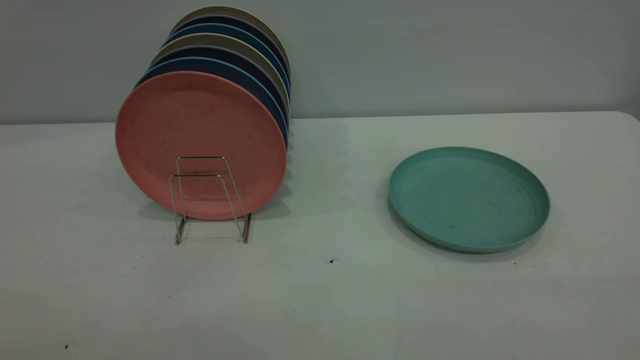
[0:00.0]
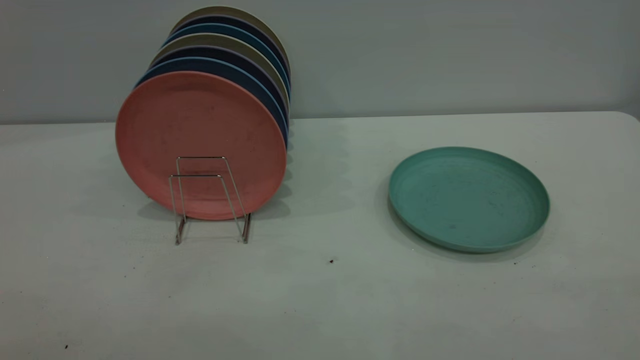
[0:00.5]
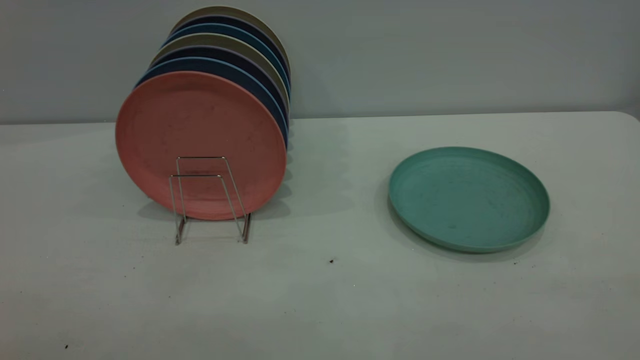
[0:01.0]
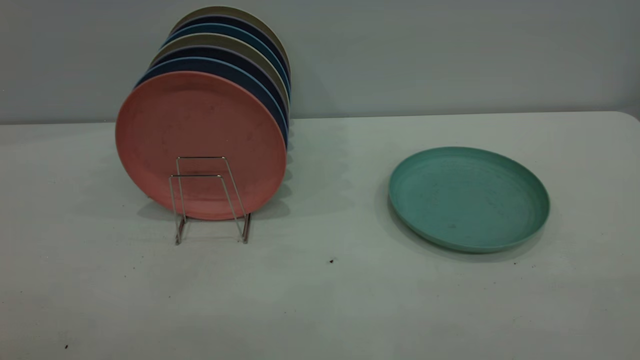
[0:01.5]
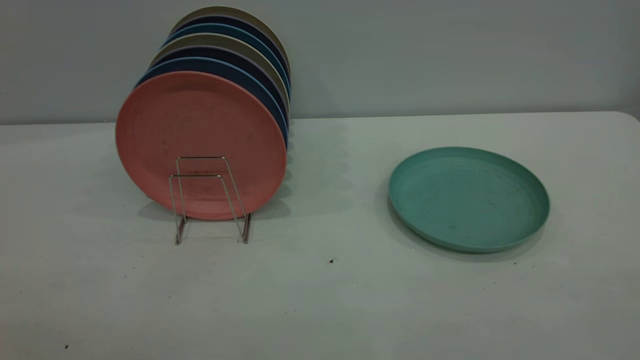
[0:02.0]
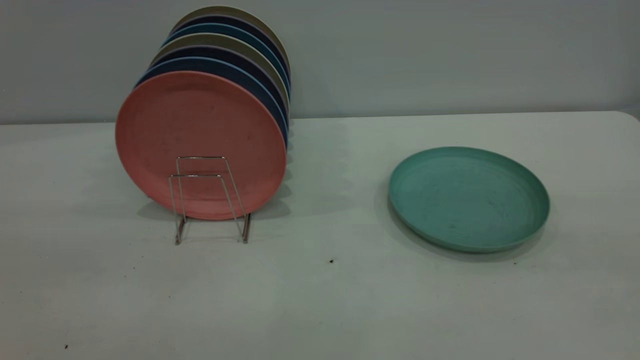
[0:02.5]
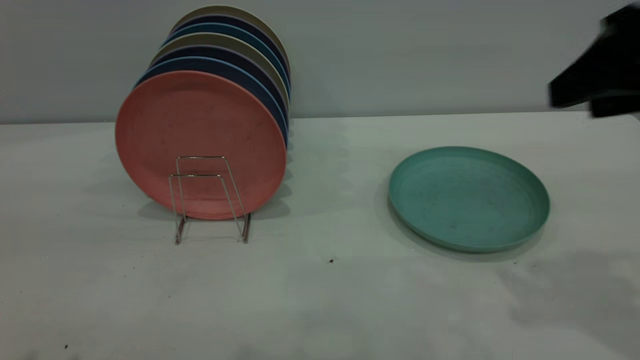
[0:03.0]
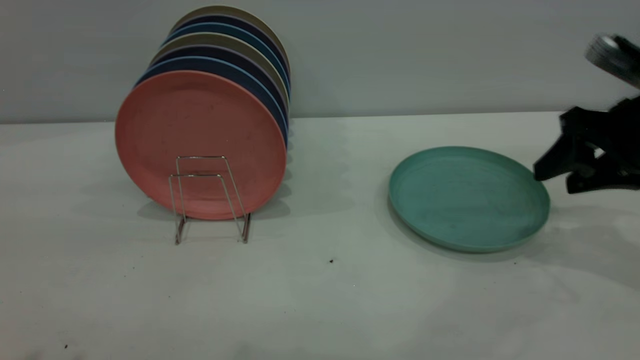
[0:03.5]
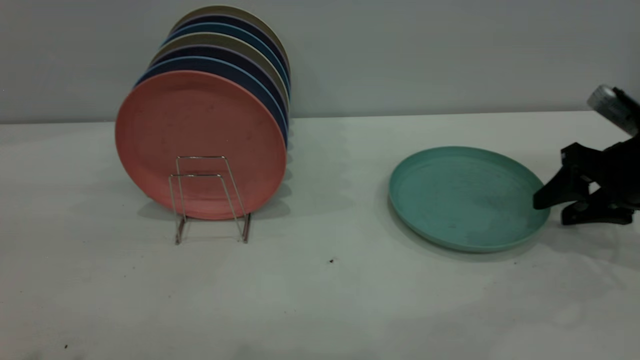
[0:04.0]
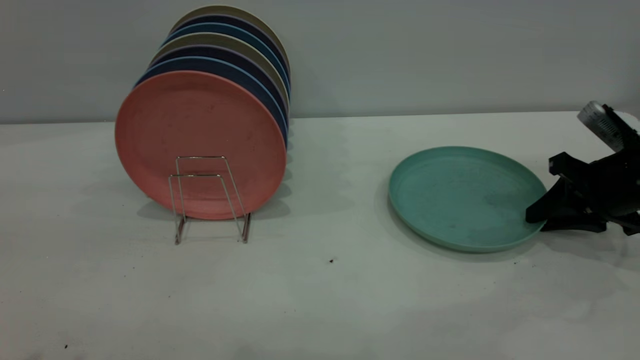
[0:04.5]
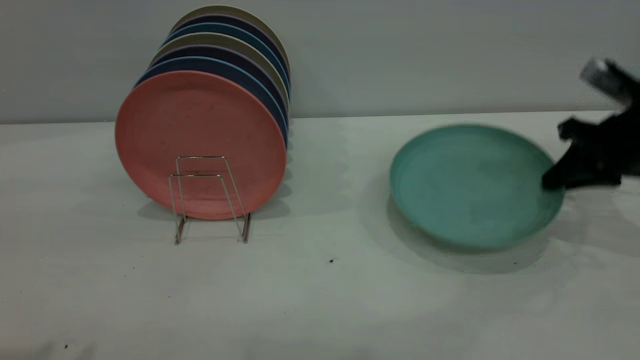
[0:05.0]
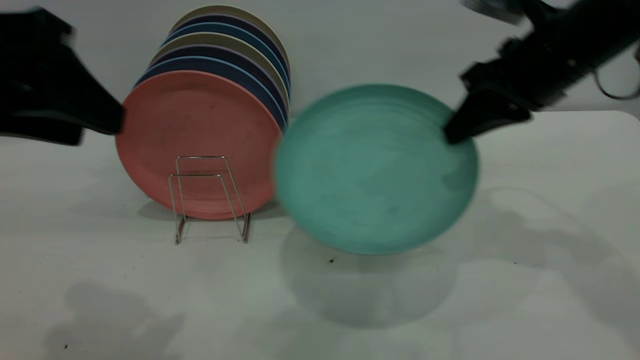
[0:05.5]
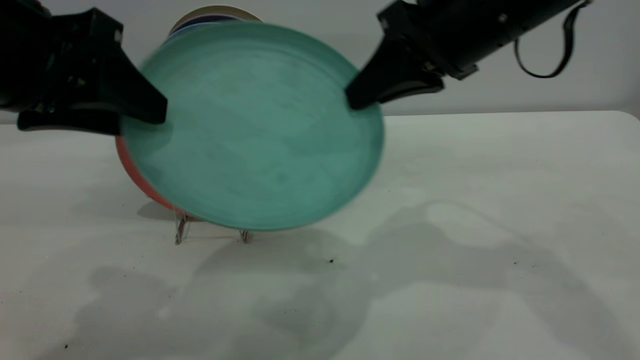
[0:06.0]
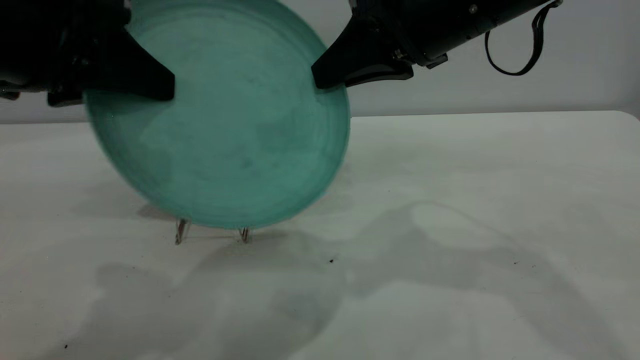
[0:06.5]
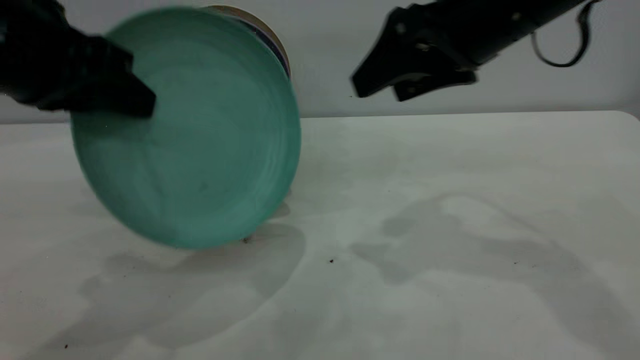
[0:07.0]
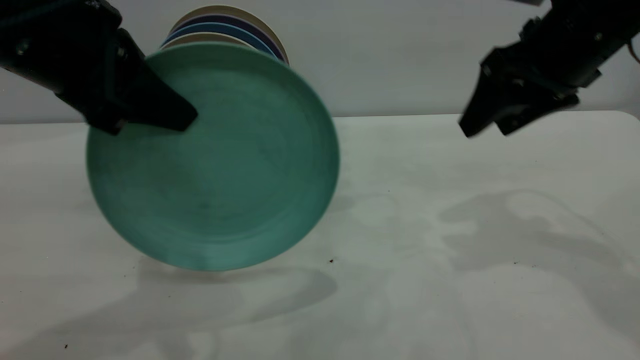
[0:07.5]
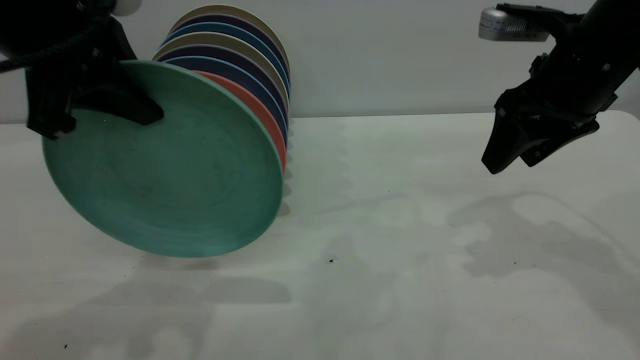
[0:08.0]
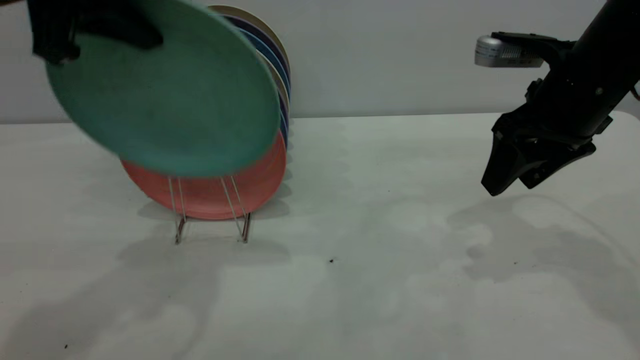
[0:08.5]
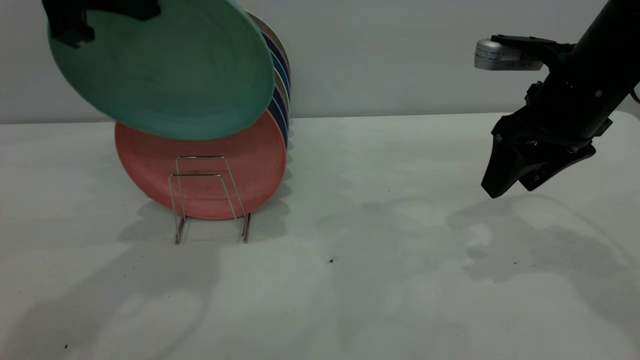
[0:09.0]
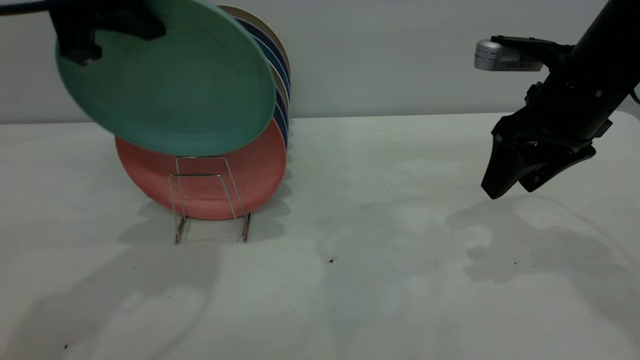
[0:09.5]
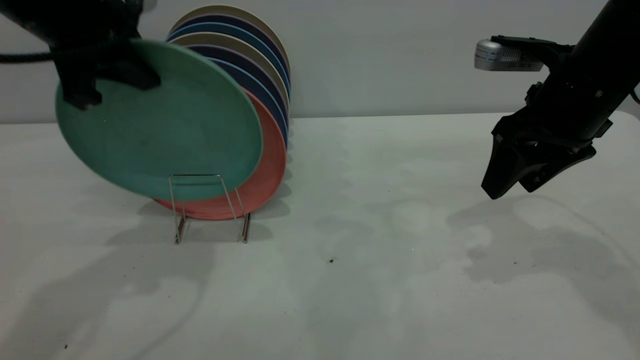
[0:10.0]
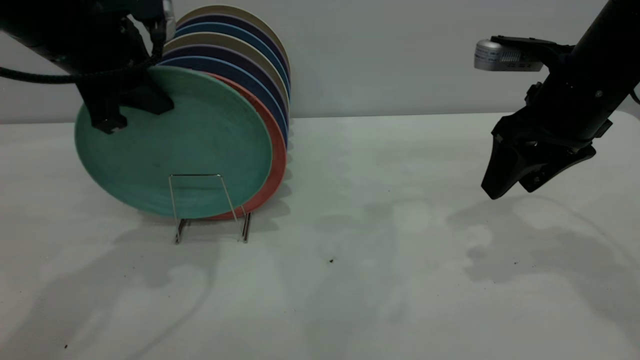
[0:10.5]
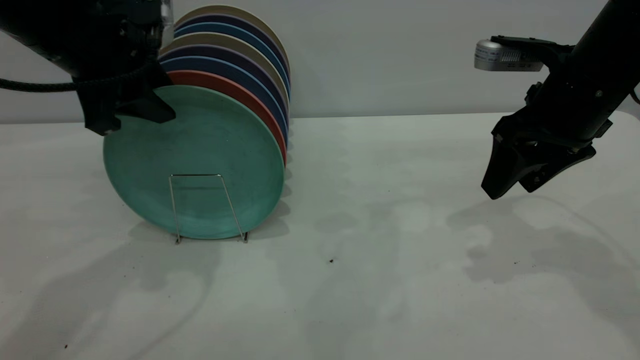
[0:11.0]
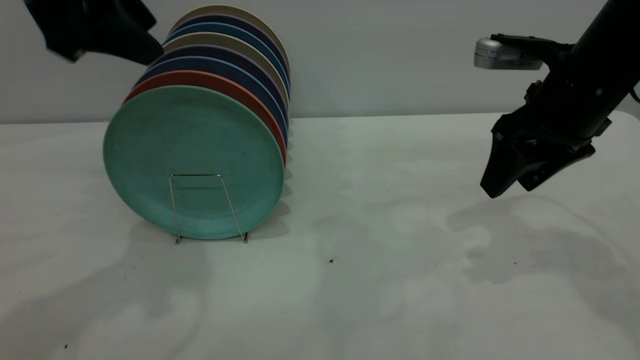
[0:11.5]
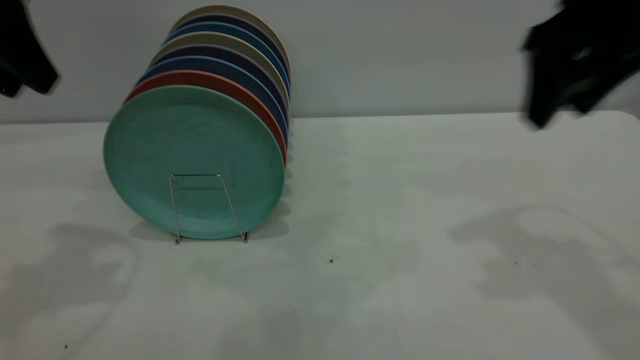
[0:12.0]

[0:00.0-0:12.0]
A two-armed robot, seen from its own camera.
Task of the whole recording: the right gripper grasp the green plate, the right gripper pass the green plate to the left gripper, and the left gripper place the green plate on the plate rack.
Step, 0:00.0 to 0:05.0: Pick up the plate with the right gripper.
Step, 0:05.5 to 0:06.5: Pass the plate from the right gripper to the left gripper.
Step, 0:07.0 to 0:11.0: Place the plate on the shelf.
0:02.0 to 0:04.0: The right gripper is displaced forward and downward by approximately 50 cm.
0:04.0 to 0:06.0: The left gripper shifts some 15 cm forward, to the right and downward; the right gripper is displaced to the left and upward by roughly 25 cm, and closes up.
0:06.0 to 0:08.0: The right gripper heads to the right, covering roughly 10 cm, and opens up; the left gripper closes its fingers.
0:08.0 to 0:10.0: The left gripper travels forward by roughly 5 cm.
0:10.0 to 0:12.0: The left gripper is displaced to the left by about 5 cm, and opens, while the right gripper shifts approximately 10 cm upward.

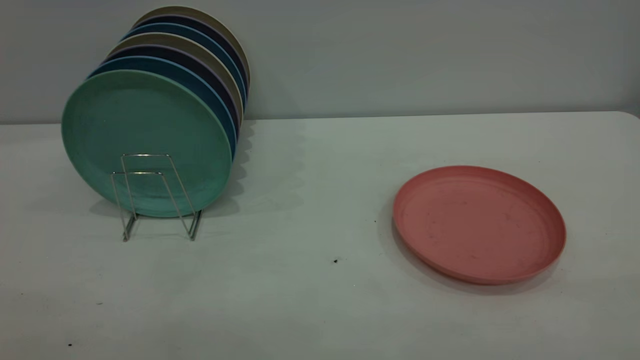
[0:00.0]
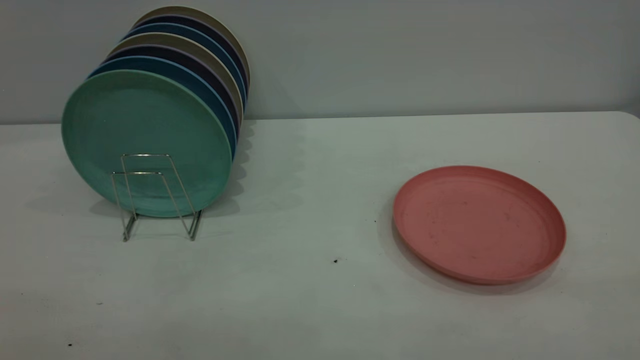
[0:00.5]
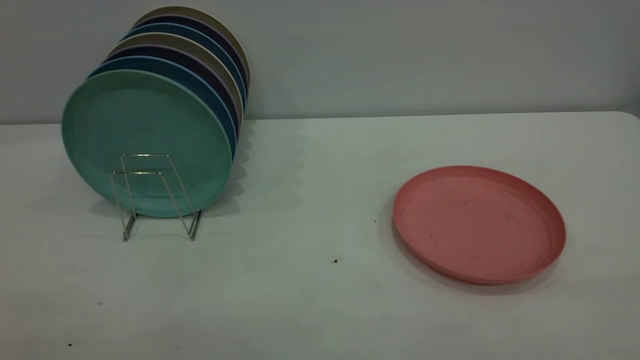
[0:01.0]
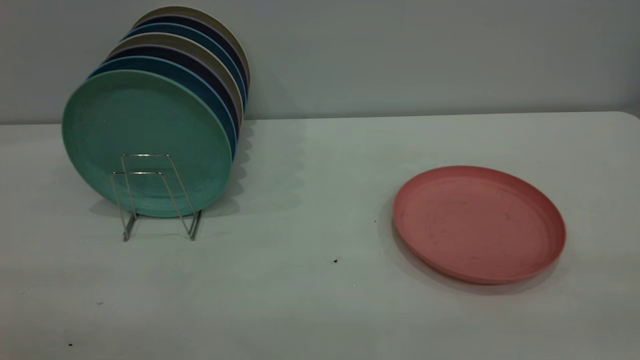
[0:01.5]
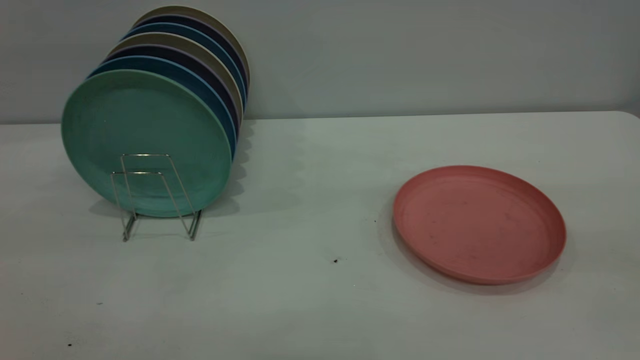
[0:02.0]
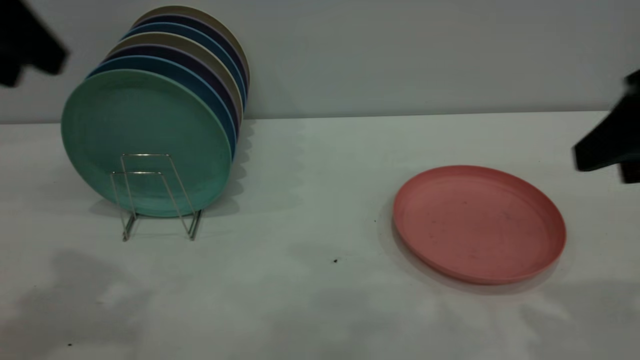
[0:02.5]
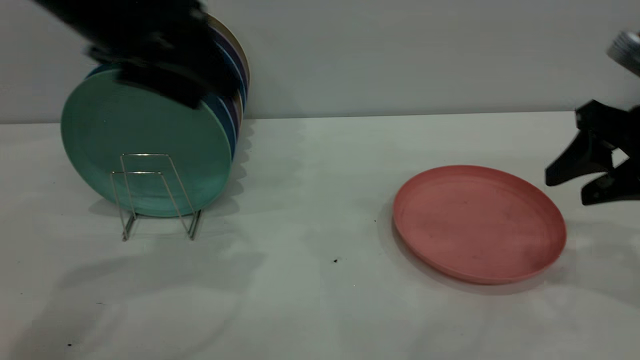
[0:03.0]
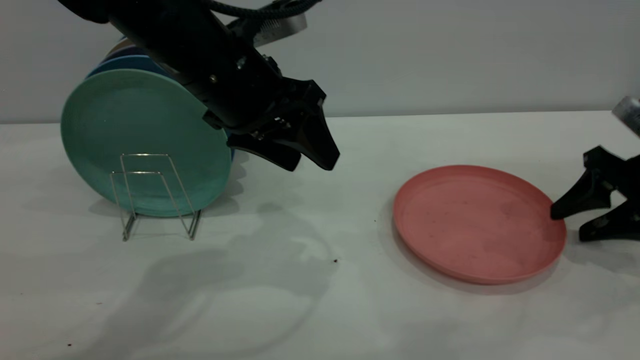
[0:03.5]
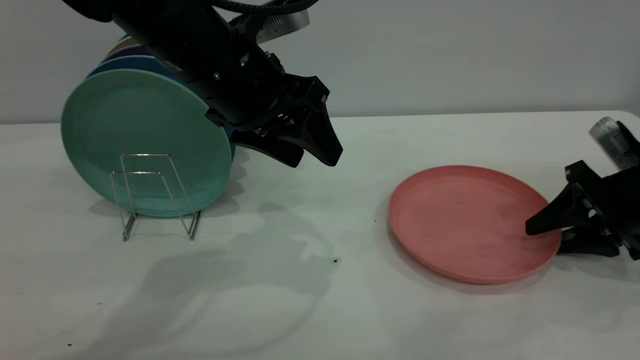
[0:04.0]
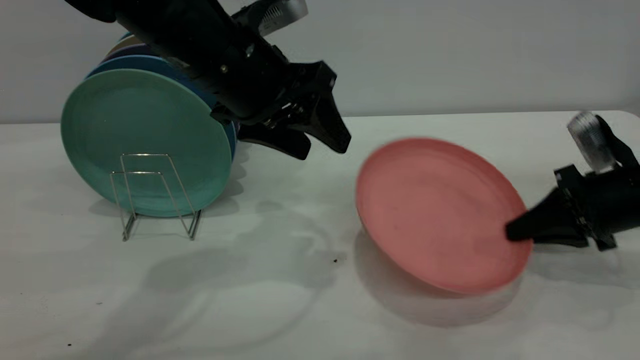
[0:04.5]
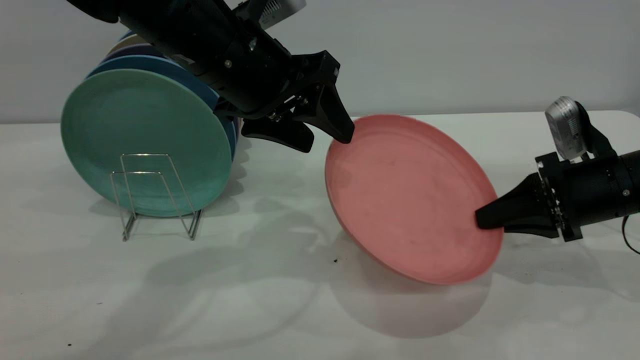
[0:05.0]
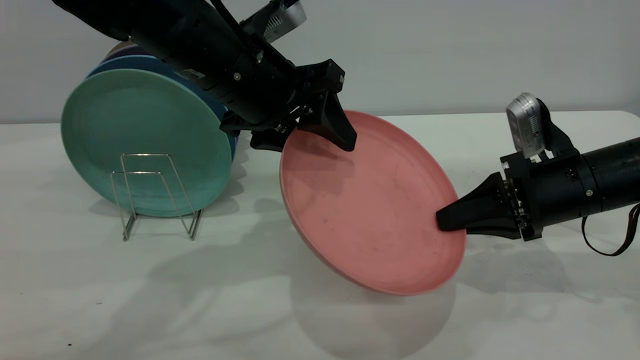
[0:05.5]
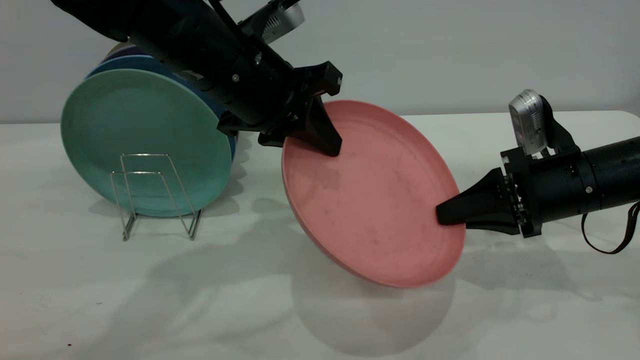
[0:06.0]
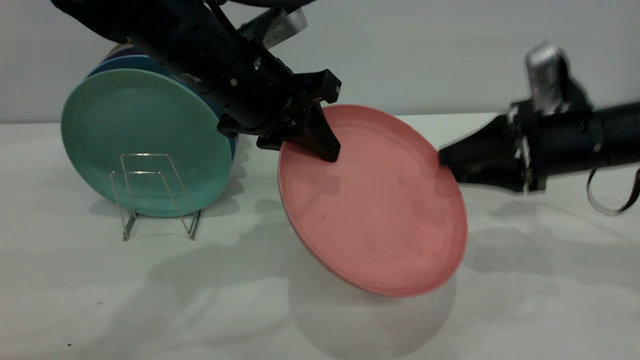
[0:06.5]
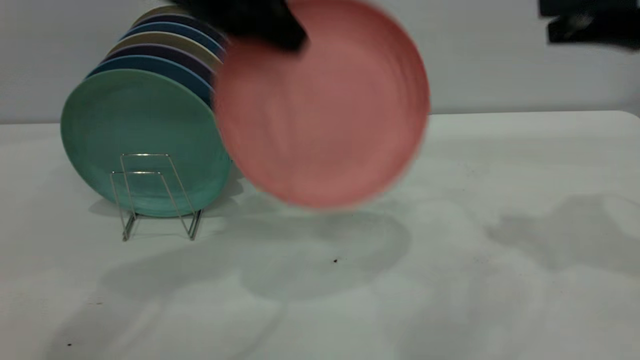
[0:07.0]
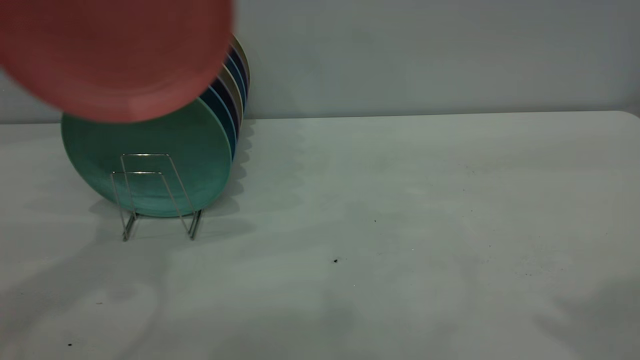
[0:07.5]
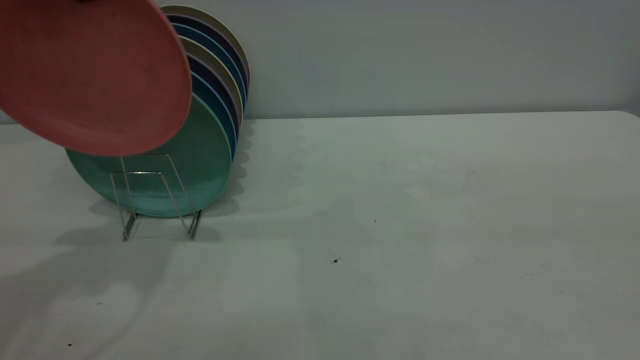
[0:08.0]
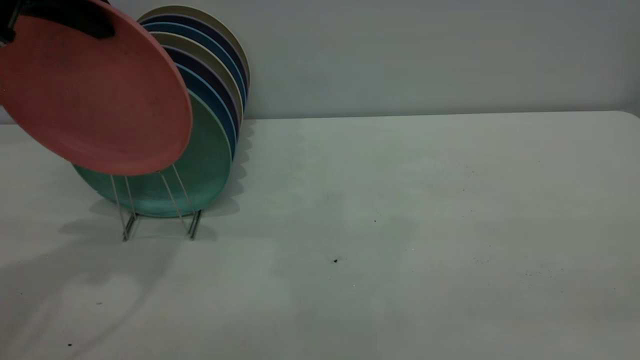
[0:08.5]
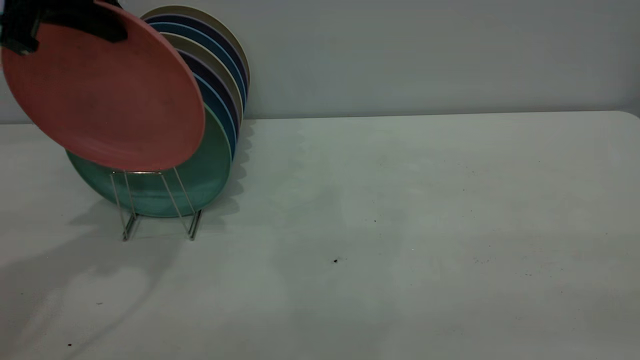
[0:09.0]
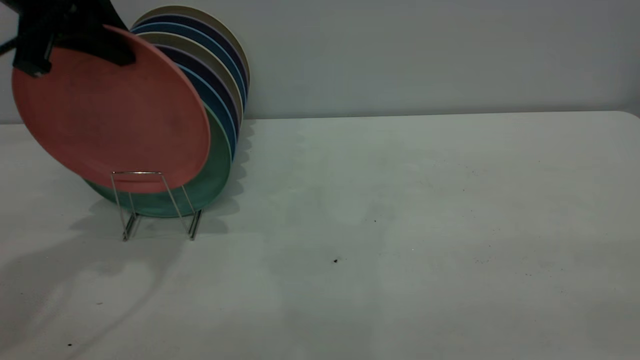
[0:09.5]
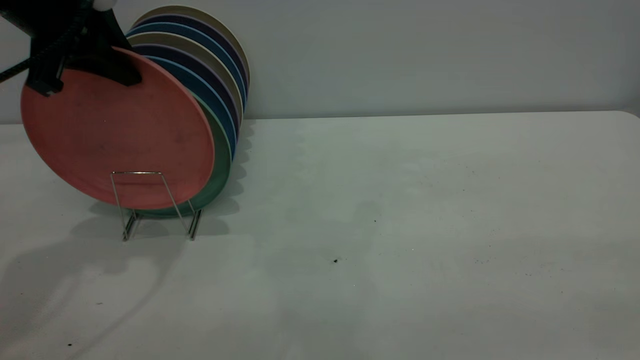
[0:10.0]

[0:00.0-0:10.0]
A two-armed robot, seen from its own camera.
Task of the whole recording: the right gripper grasp the pink plate, the right gripper pass the pink plate to the left gripper, and the left gripper place the pink plate on the plate rack.
Step, 0:00.0 to 0:04.0: Pick up the plate with the right gripper.
Step, 0:05.0 to 0:06.5: Pass the plate from the right gripper to the left gripper.
0:02.0 to 0:04.0: The left gripper moves forward, to the right and downward, some 30 cm. The right gripper goes some 35 cm downward and forward.
0:04.0 to 0:06.0: The right gripper heads to the left, covering roughly 10 cm, and closes. The left gripper closes its fingers.
0:06.0 to 0:08.0: The right gripper moves upward and backward, approximately 50 cm, and opens; the left gripper is displaced to the left and upward by some 25 cm.
0:08.0 to 0:10.0: The left gripper travels downward by some 10 cm.
